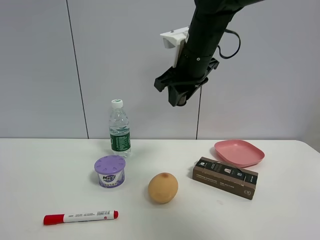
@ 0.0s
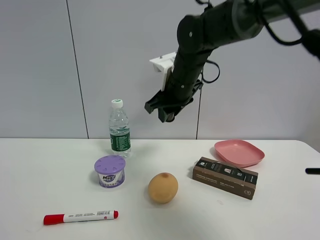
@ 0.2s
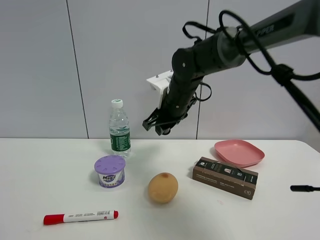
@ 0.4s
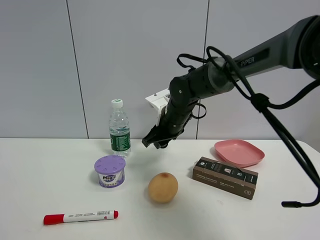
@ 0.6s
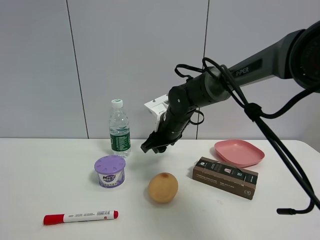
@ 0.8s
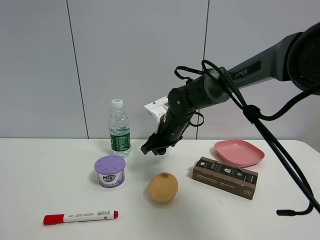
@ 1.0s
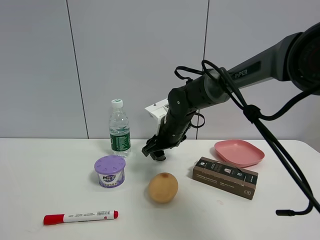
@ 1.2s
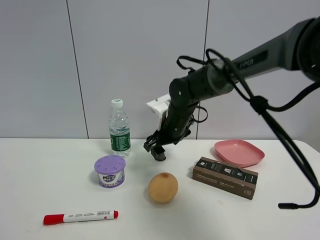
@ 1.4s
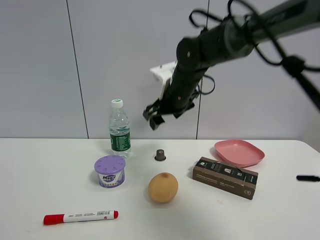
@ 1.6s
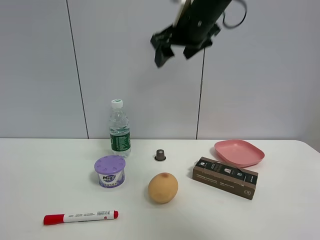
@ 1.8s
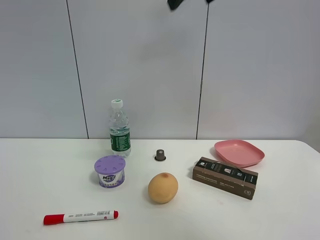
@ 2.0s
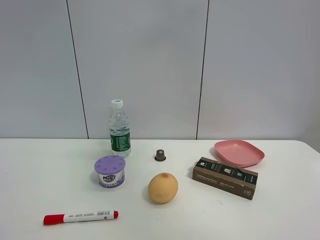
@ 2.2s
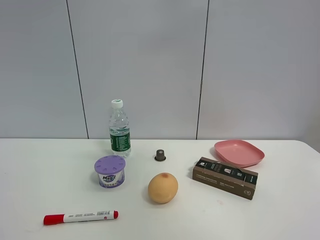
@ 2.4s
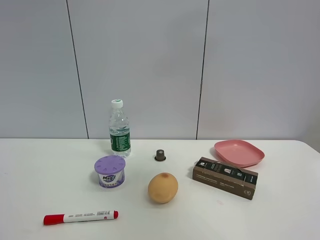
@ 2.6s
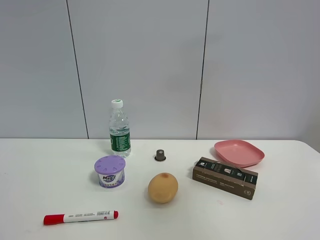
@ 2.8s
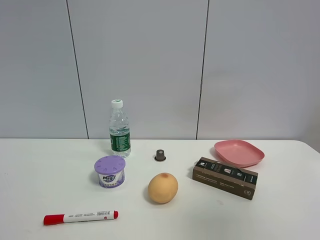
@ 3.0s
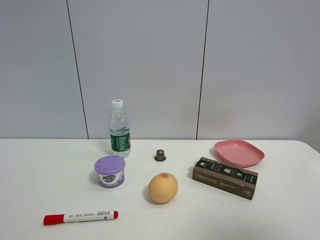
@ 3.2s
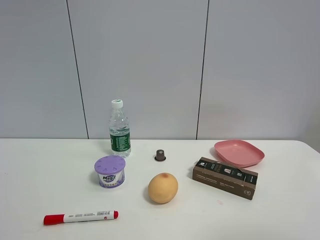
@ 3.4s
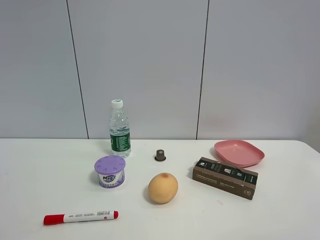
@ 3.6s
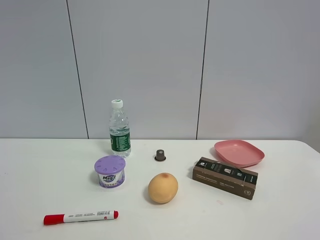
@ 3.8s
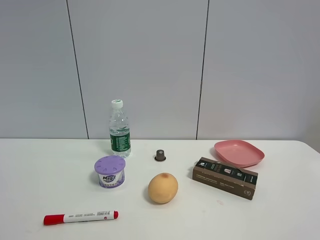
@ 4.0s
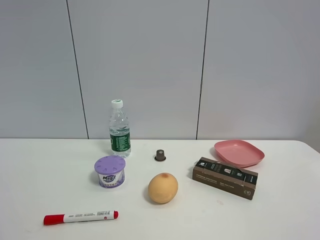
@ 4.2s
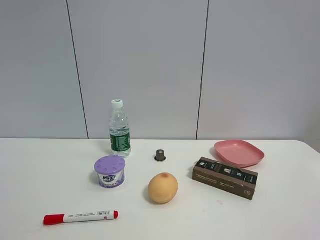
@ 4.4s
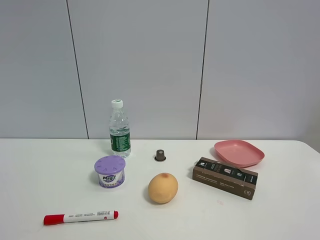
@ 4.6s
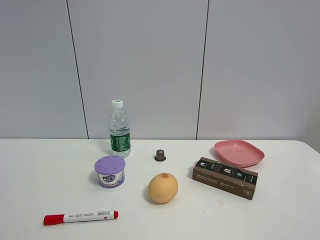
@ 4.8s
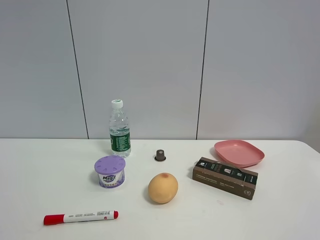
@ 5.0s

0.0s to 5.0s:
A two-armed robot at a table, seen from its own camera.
Task of the whole recording: the gripper move the object.
0.0s to 1.6s: The right gripper reaches some 15 cm downward, then returns, and opens.
1.6s to 3.4s: The right gripper shifts roughly 50 cm backward and to the right.

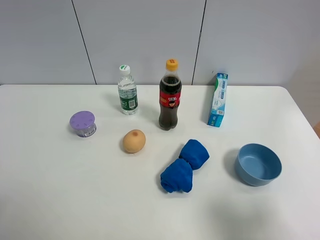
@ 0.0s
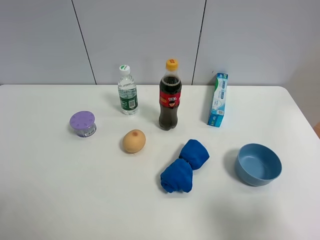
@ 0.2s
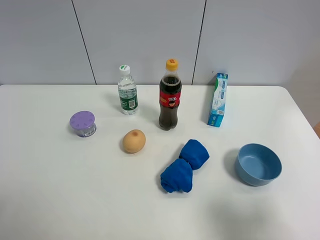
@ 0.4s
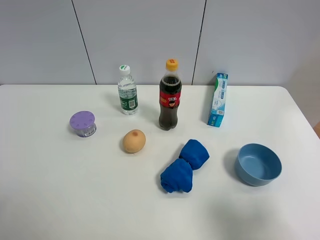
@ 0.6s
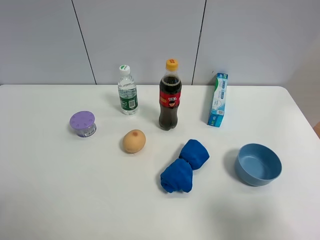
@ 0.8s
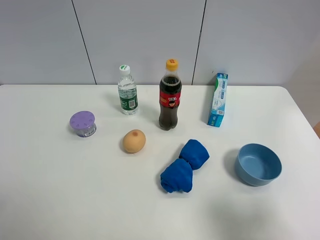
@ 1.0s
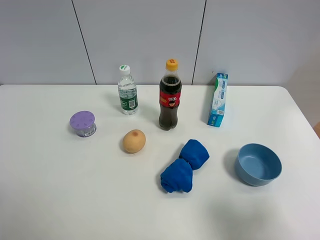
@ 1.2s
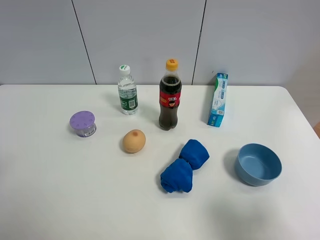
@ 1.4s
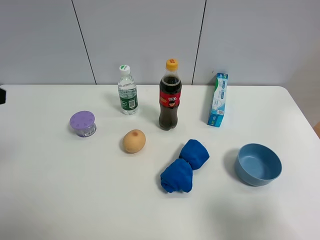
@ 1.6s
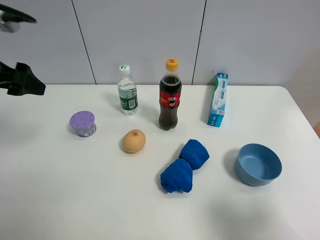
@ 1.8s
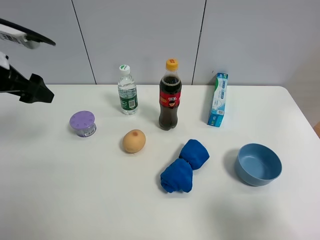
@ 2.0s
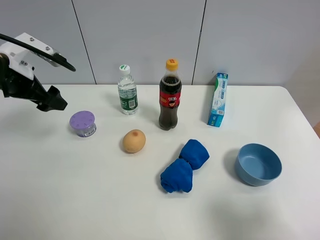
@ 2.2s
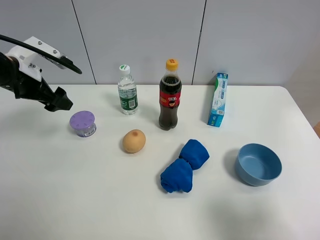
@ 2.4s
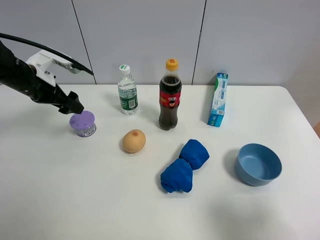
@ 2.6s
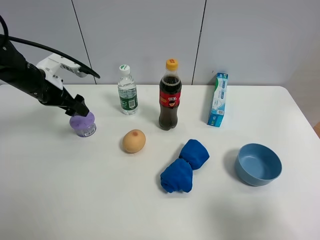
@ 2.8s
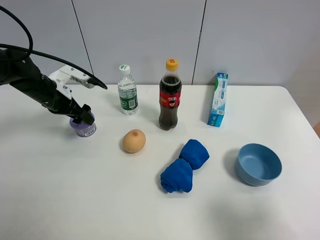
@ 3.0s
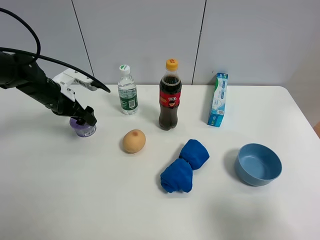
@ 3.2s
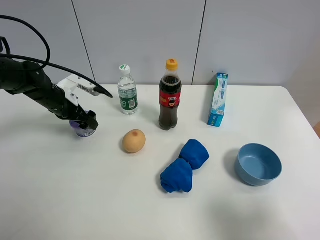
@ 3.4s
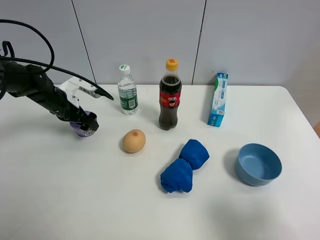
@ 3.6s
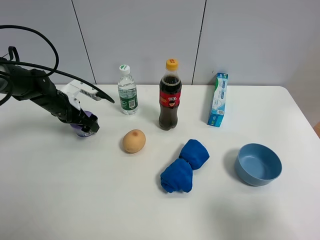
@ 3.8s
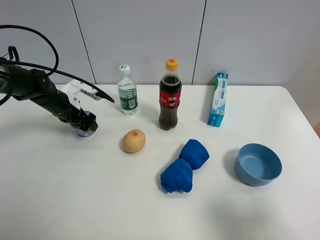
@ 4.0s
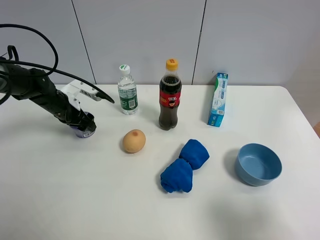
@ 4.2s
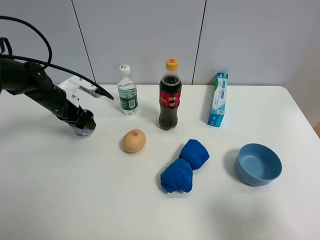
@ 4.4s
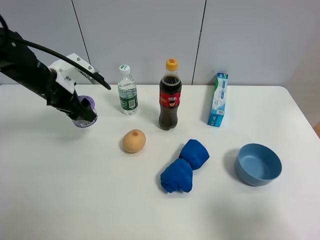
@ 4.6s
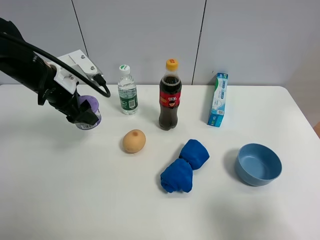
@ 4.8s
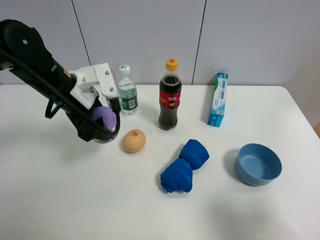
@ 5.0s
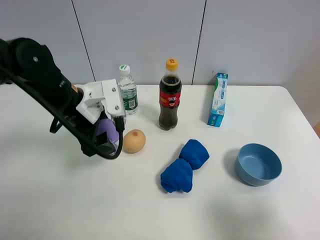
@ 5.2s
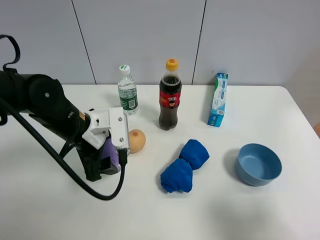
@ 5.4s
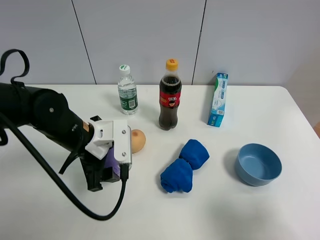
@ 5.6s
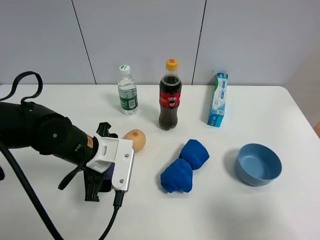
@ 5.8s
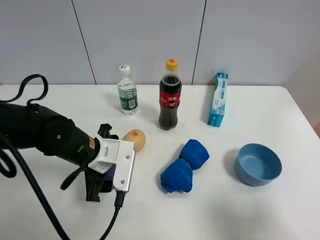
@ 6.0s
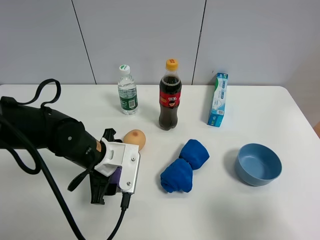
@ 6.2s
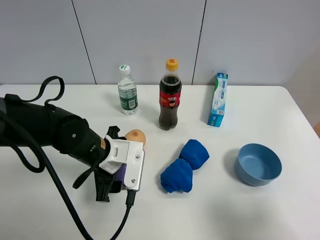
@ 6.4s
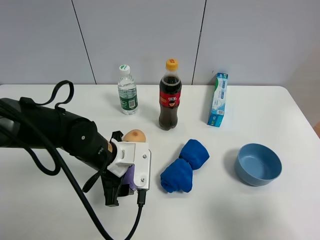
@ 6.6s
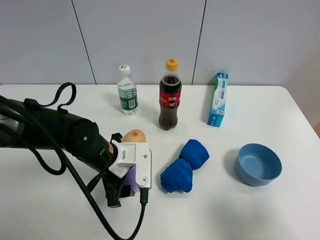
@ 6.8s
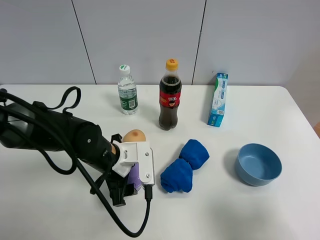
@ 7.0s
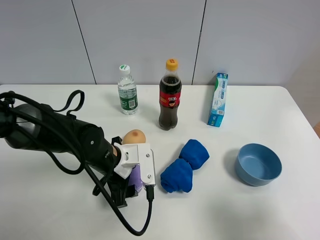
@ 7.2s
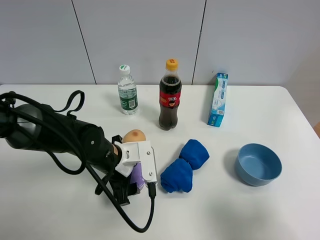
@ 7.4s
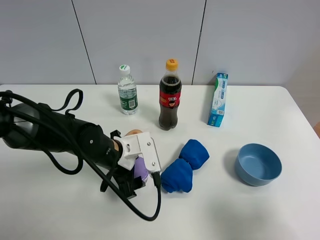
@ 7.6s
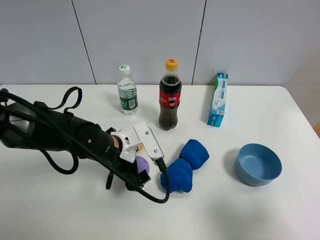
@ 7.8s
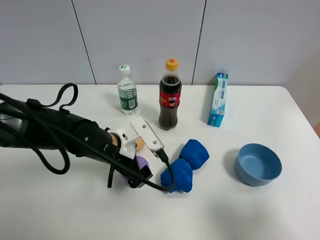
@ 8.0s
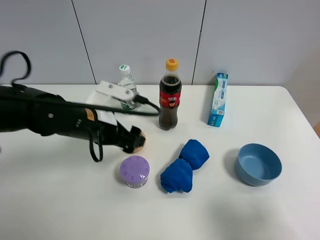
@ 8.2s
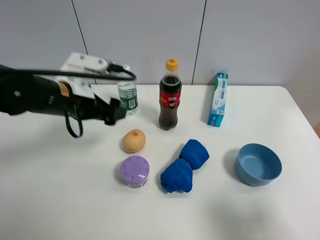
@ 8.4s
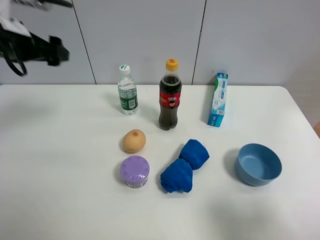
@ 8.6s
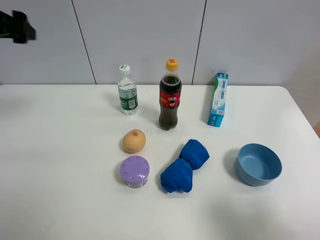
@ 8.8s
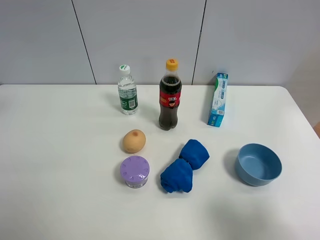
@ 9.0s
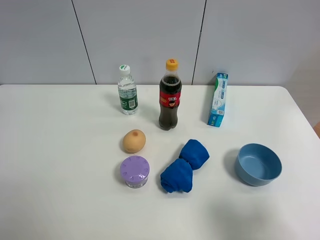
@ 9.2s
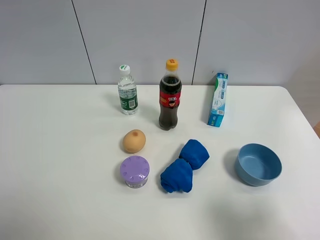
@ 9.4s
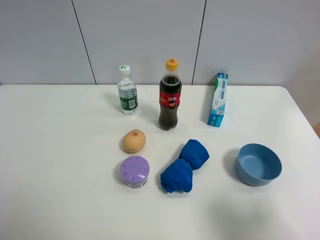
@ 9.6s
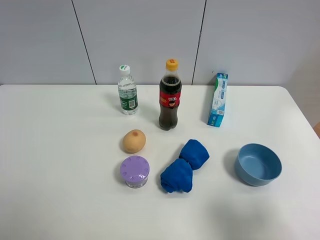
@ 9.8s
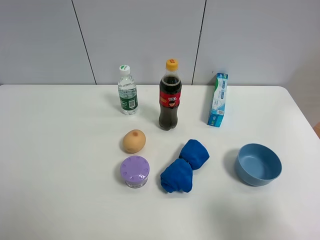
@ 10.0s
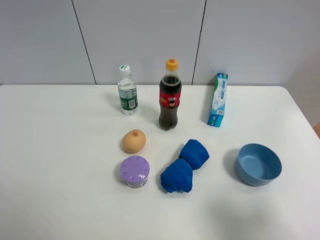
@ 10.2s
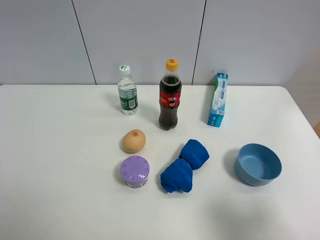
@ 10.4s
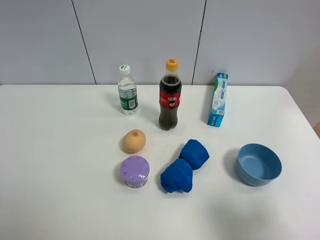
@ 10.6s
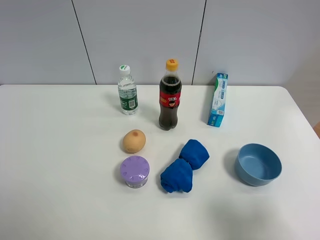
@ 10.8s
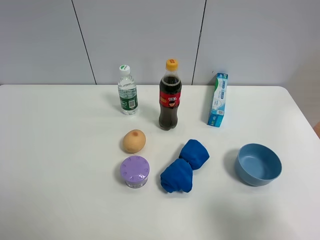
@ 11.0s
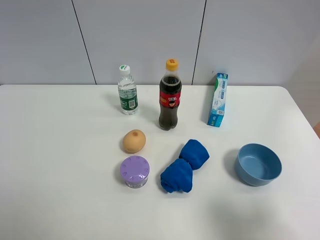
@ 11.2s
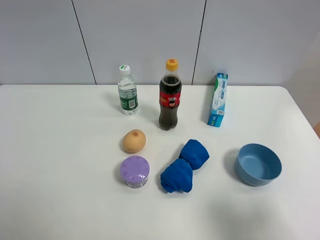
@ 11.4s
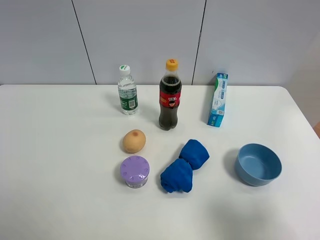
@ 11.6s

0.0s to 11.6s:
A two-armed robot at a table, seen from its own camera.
Task of the whole recording: the gripper move the object.
Step, 0.0s to 4.0s: Grasp the Incense box with the left gripper.
Step, 4.2s to 8.0s: Place the Incense box on the table with the left gripper.
1.4s to 2.8s: The left gripper goes approximately 30 cm forward and downward.
2.8s to 4.4s: The left gripper closes.
4.4s to 5.8s: The left gripper moves backward and to the right, approximately 20 cm.
5.8s to 7.2s: The left gripper ends up approximately 5 cm from where it was.
7.2s to 8.8s: The left gripper moves upward and to the left, roughly 35 cm, and opens.
8.8s to 10.2s: The left gripper moves backward, roughly 30 cm.

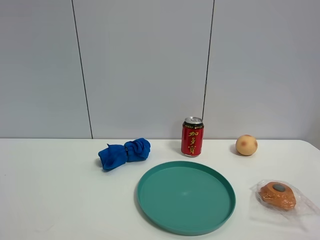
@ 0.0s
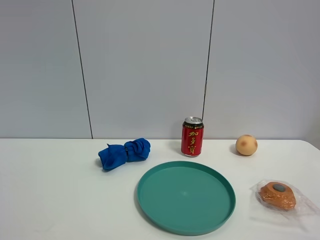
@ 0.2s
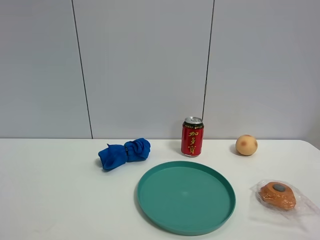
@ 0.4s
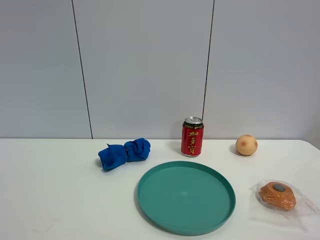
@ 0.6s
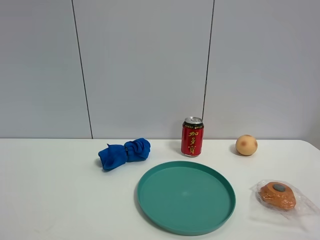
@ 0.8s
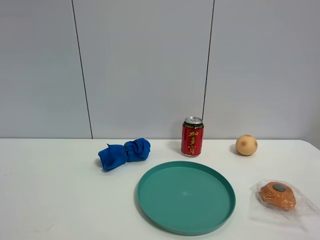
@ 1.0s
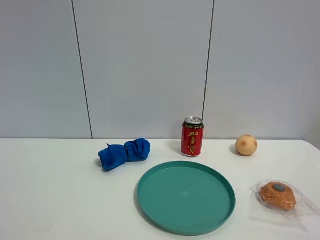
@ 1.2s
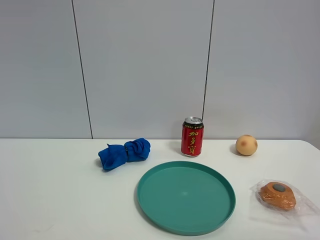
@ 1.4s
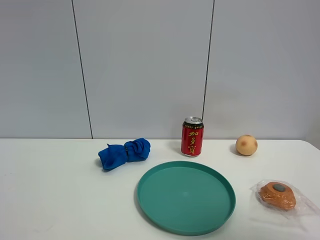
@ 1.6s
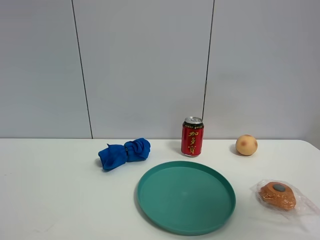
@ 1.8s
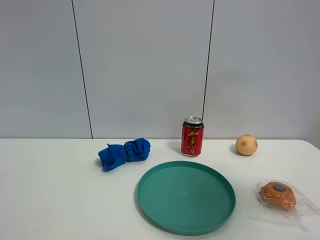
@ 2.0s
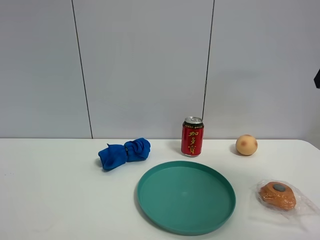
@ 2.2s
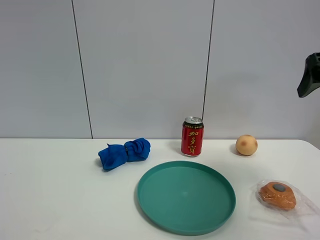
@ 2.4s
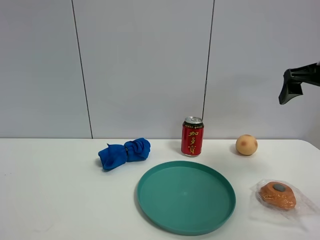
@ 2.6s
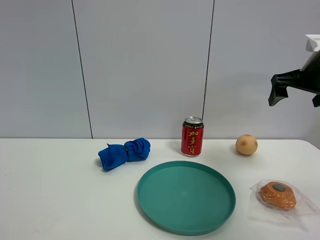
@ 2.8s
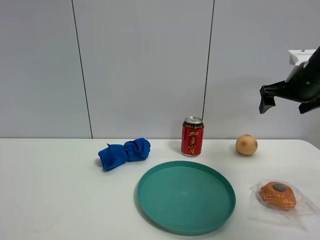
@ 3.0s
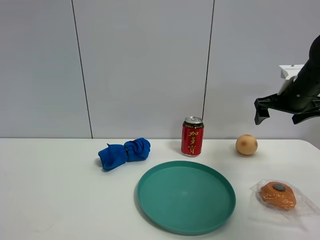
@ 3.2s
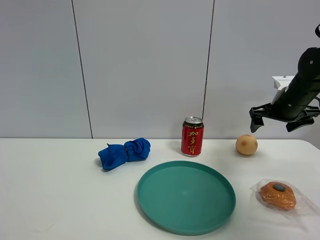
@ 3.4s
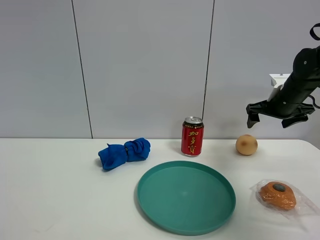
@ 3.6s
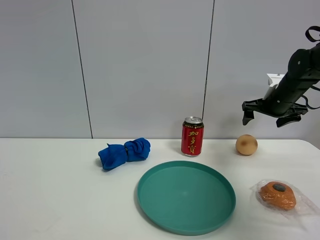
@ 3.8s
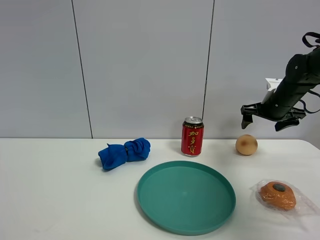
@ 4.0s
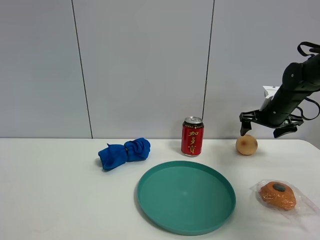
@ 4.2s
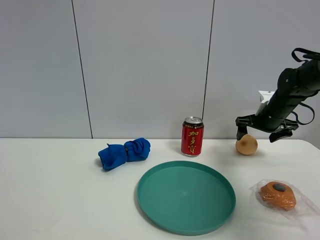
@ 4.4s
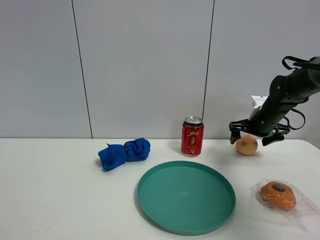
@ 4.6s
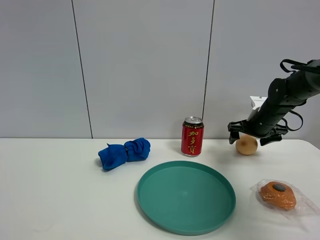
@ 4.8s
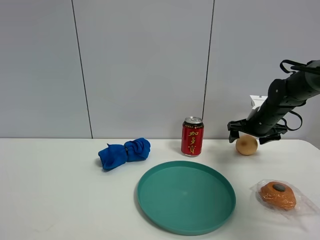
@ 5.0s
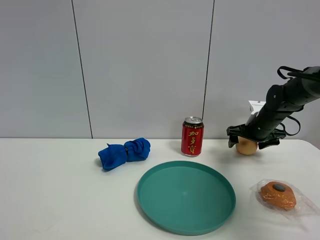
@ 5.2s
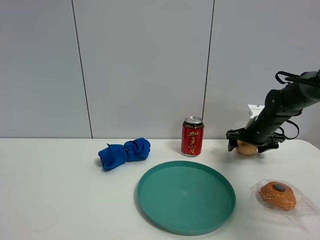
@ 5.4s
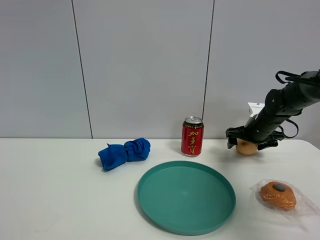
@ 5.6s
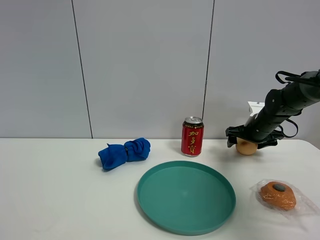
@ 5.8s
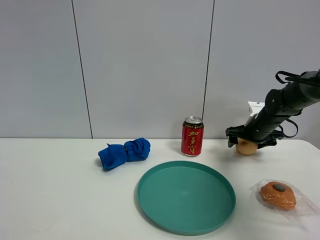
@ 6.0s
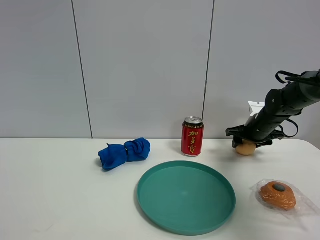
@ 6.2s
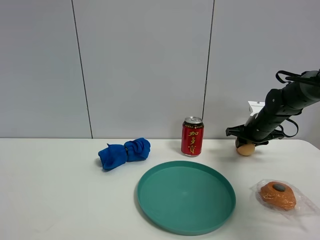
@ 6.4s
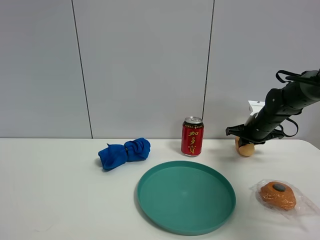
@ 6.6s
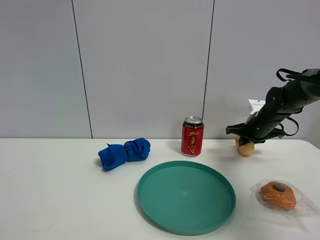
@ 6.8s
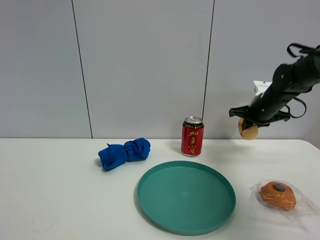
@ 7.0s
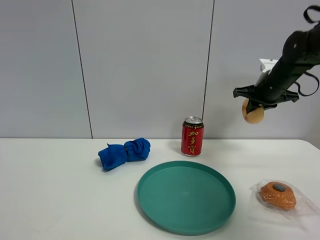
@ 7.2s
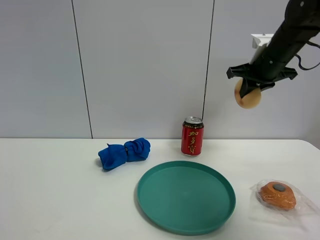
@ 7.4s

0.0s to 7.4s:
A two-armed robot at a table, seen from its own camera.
Task of the whole recording: the gripper move the object.
Step, 0.0s to 6.4s: Grasp the egg yolk pastry with the right gripper.
1.4s to 3.0s: The right gripper goes approximately 40 cm forward.
3.0s to 4.4s: The right gripper goes approximately 10 cm downward and forward.
4.4s to 6.0s: The grippers move only a little.
6.0s to 7.4s: The right gripper travels upward by some 20 cm, and closes.
